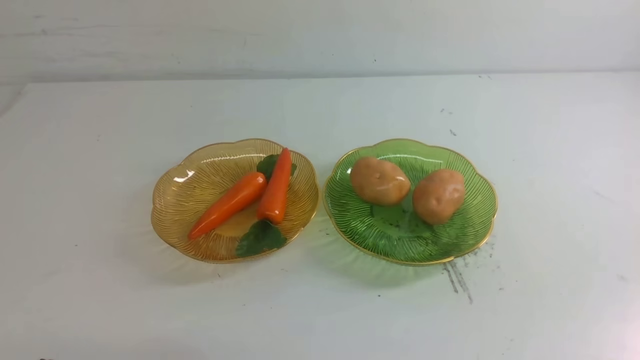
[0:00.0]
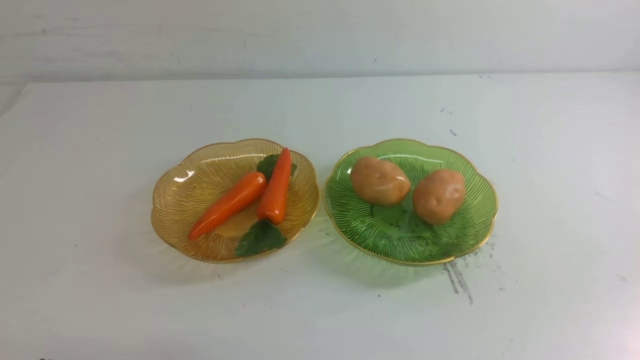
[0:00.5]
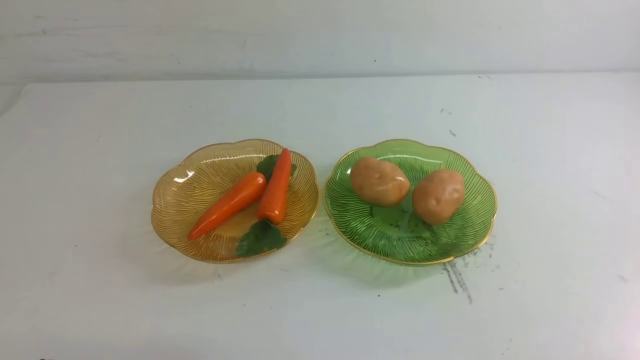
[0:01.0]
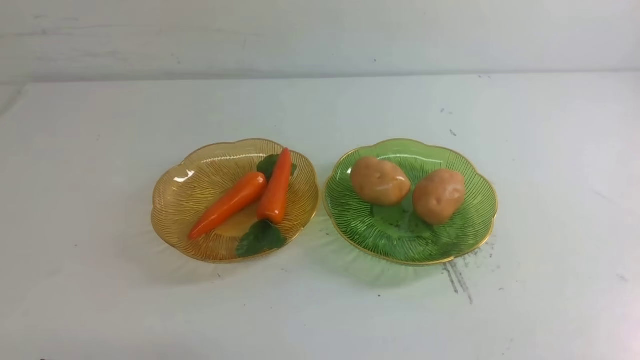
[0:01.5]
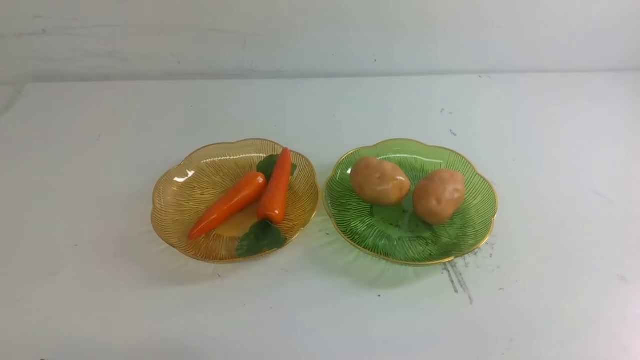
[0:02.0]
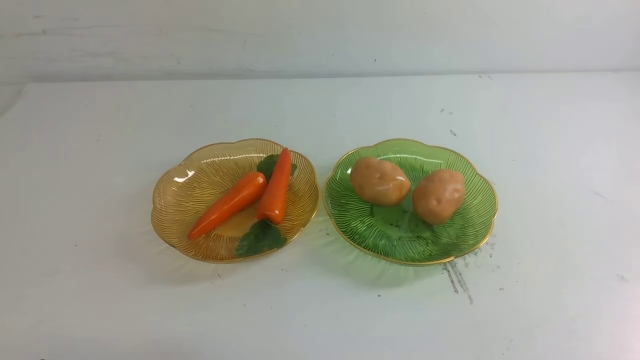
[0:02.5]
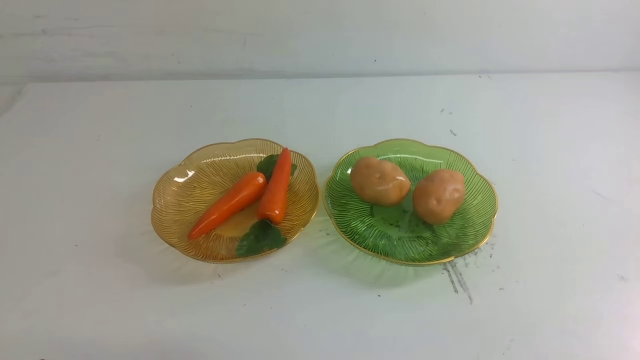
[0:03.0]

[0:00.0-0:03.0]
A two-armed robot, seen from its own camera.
0:01.5 to 0:03.0: Both grippers stay put.

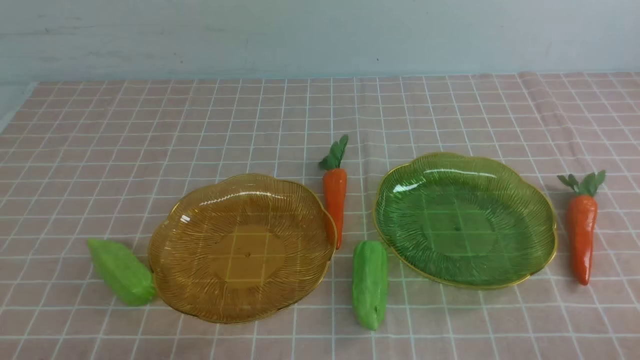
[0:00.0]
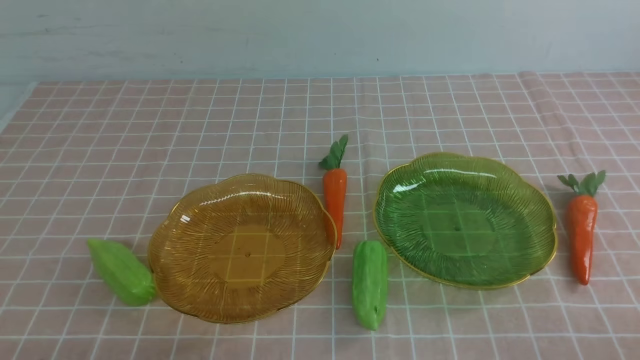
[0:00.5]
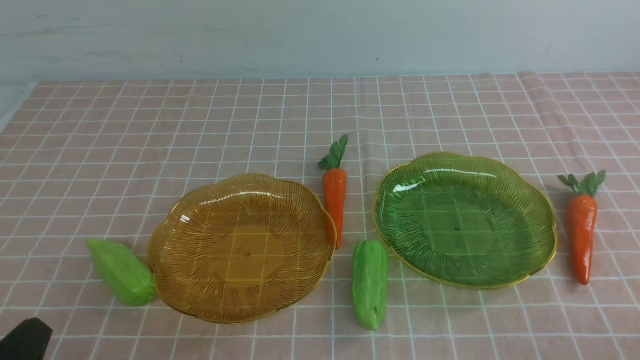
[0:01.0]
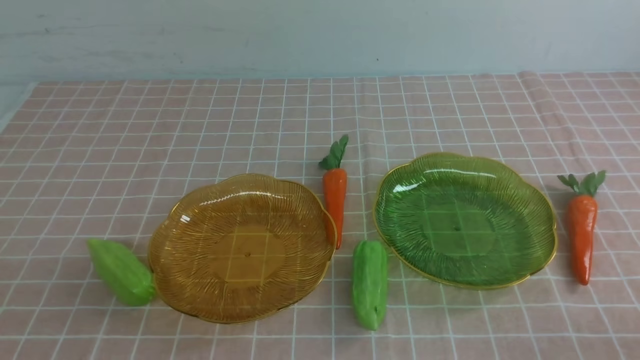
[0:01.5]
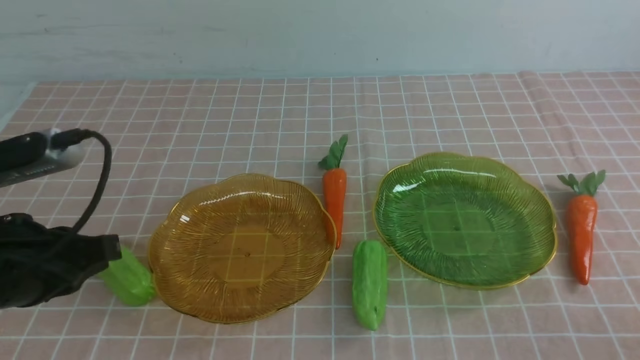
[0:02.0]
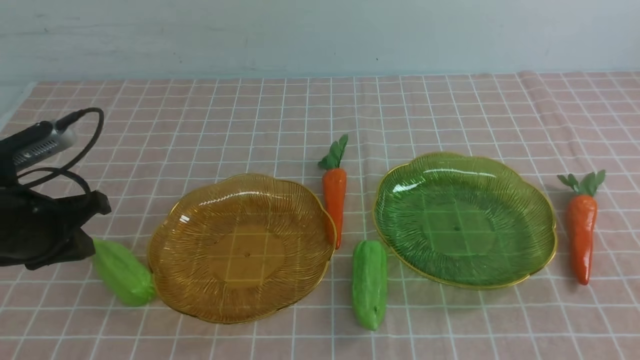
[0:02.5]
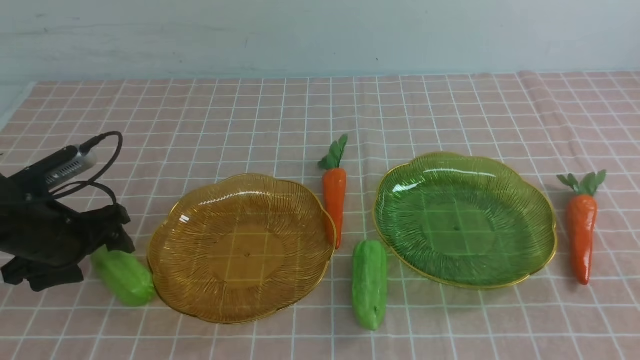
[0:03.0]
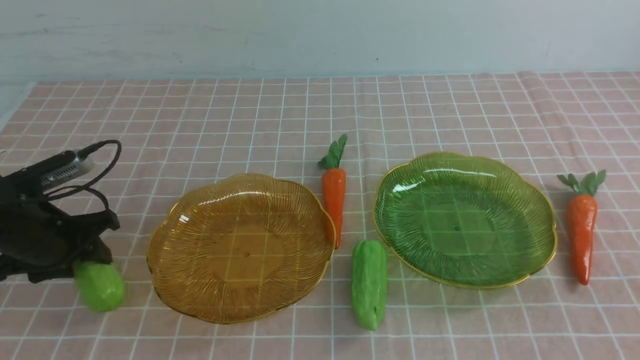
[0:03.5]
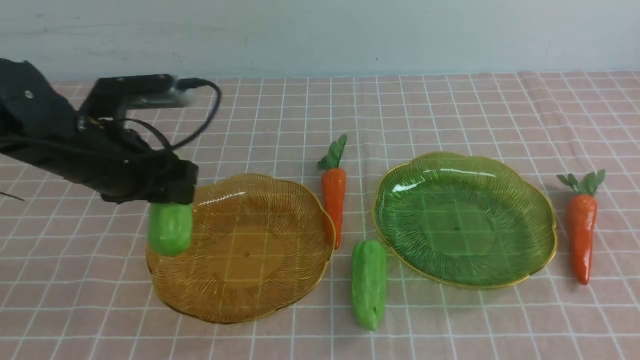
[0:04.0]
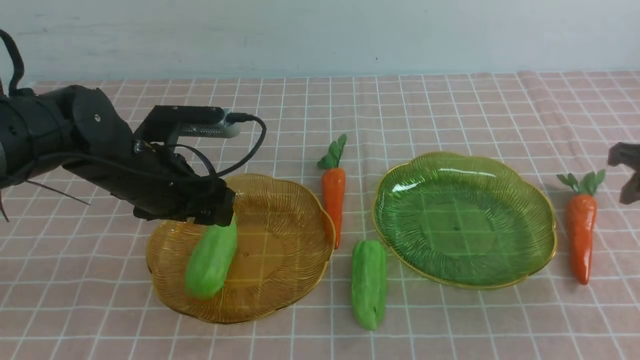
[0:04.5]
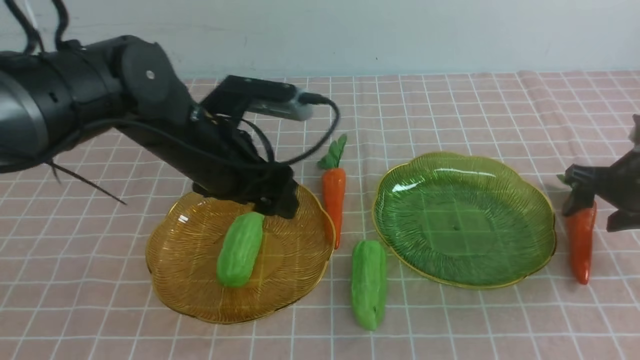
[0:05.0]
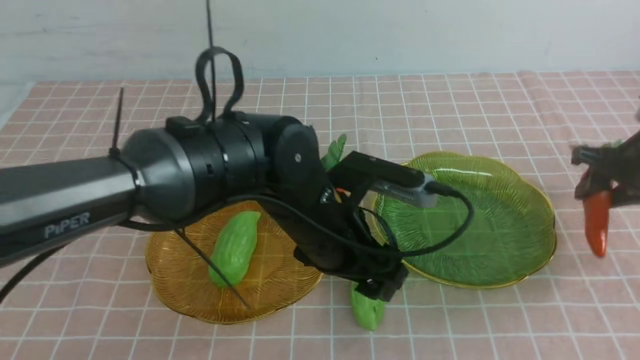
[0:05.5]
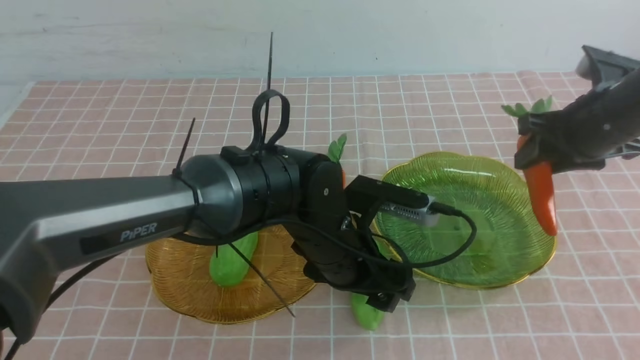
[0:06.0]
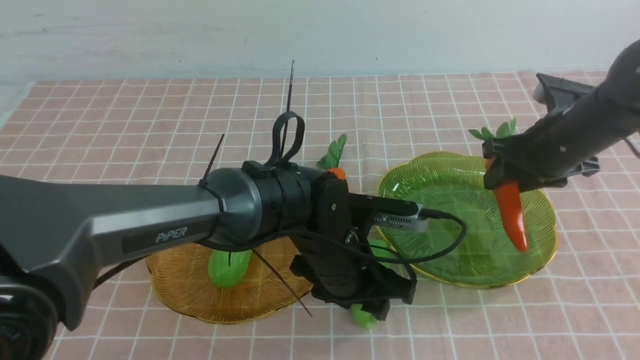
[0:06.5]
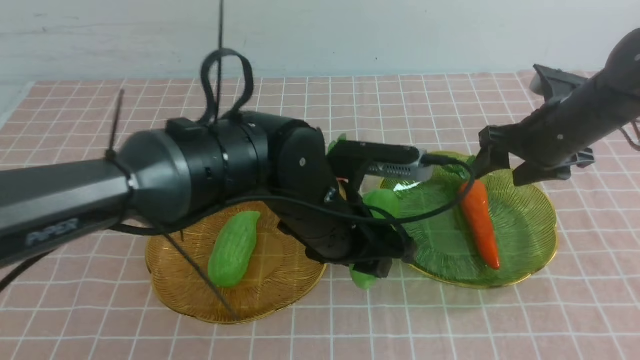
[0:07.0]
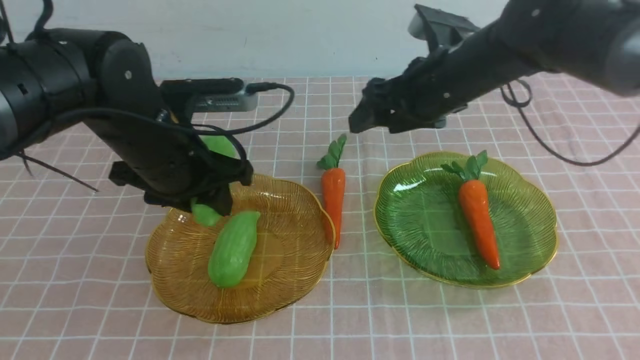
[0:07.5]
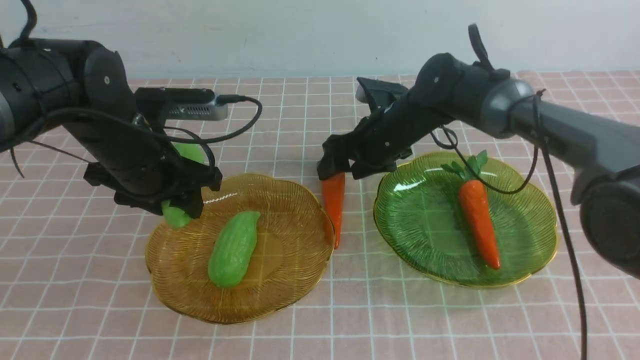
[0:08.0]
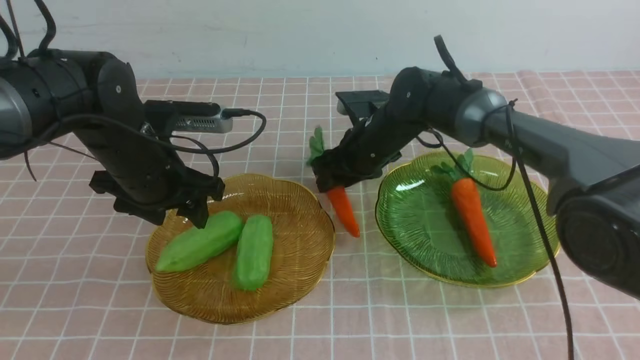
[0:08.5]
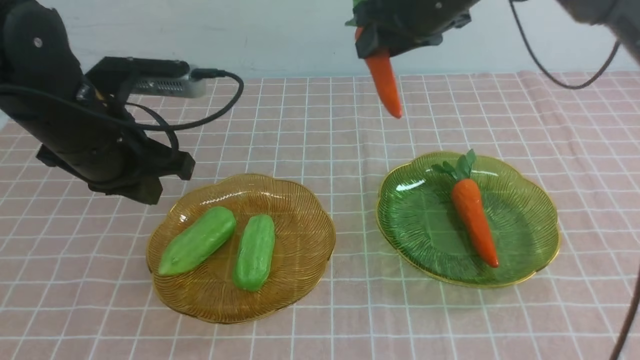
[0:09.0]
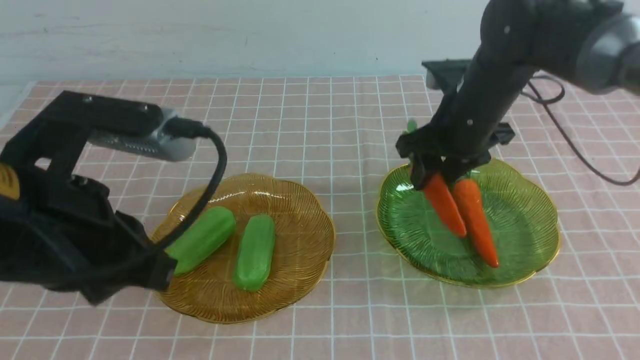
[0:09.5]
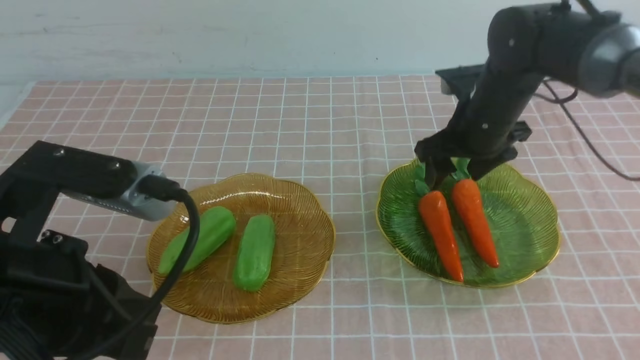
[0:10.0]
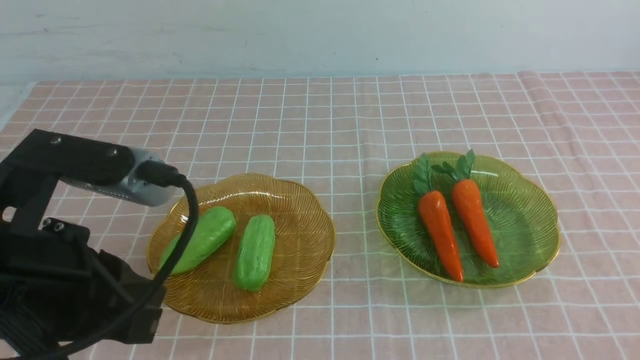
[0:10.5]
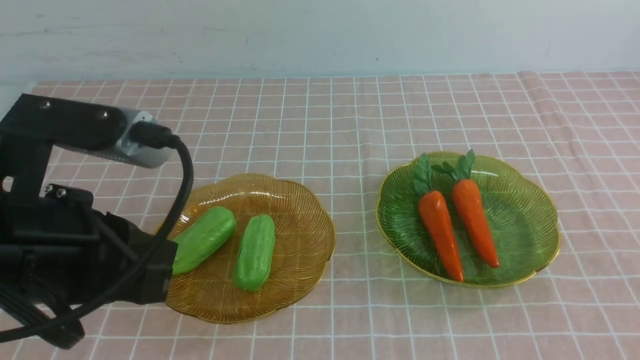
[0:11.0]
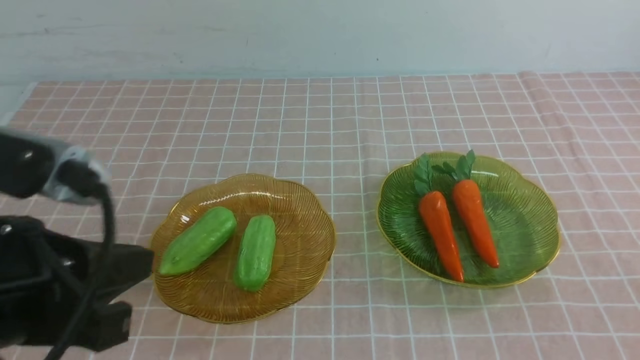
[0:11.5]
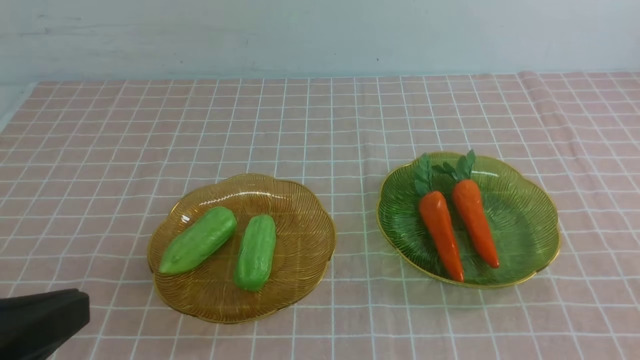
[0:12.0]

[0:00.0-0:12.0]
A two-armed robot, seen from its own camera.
Step, 0:00.0 to 0:04.5: use the left arm to grab a chayote and put it into the left plate.
Step, 0:05.0 to 0:06.5: use the right arm to grab a carrot and put it into the right plate.
Step, 0:07.0 to 0:08.0: use the left arm to grab a chayote and put it into the left plate.
Step, 0:08.5 to 0:09.5: use the right arm to grab a carrot and put it into the right plate.
0:02.0 to 0:04.0: The left gripper shifts roughly 20 cm forward, and opens.
0:04.0 to 0:06.0: The right gripper shifts about 15 cm forward, to the left and downward, and opens, while the left gripper heads to the right, covering approximately 20 cm, and opens its fingers.
0:06.0 to 0:08.0: The right gripper heads to the left and forward, covering about 20 cm, and opens. Meanwhile the left gripper moves to the left and upward, some 20 cm, and closes its fingers.
0:08.0 to 0:10.0: The left gripper shifts some 20 cm backward, and closes; the right gripper moves to the right, about 10 cm, and moves some 10 cm upward and comes back.
0:10.0 to 0:12.0: The right gripper heads backward, covering approximately 40 cm, and closes its fingers. Meanwhile the left gripper shifts some 10 cm backward.

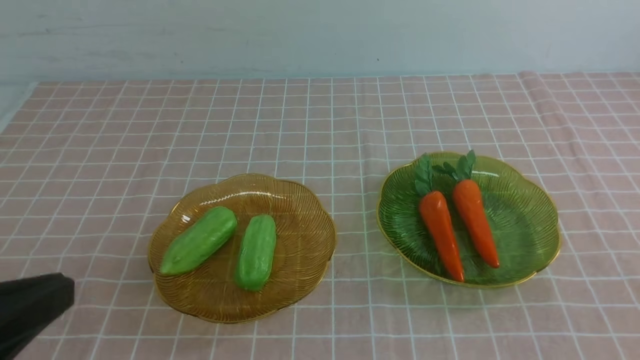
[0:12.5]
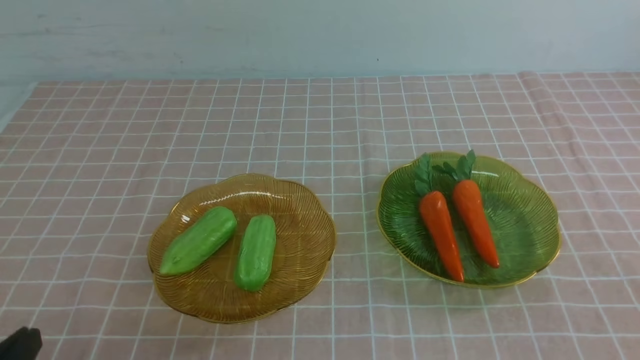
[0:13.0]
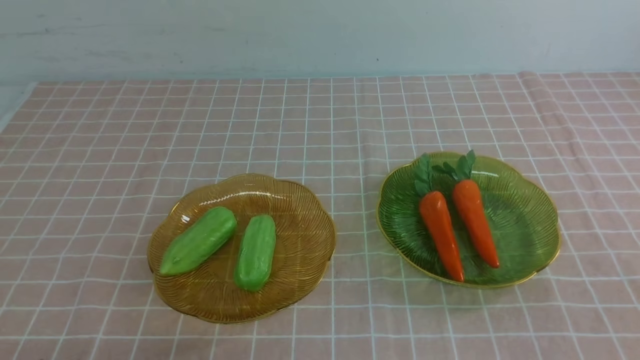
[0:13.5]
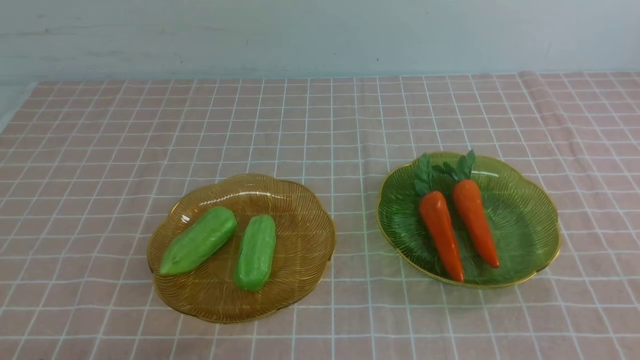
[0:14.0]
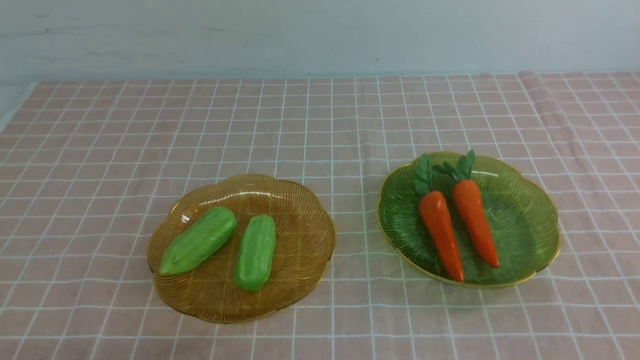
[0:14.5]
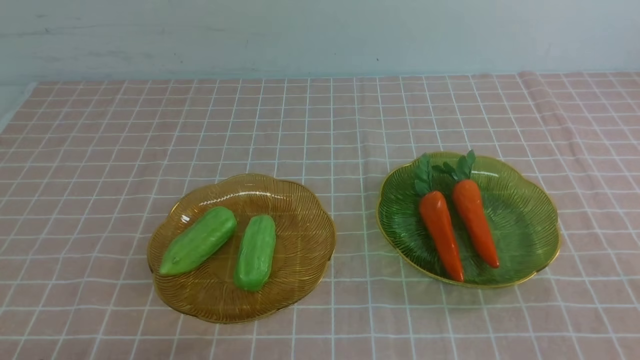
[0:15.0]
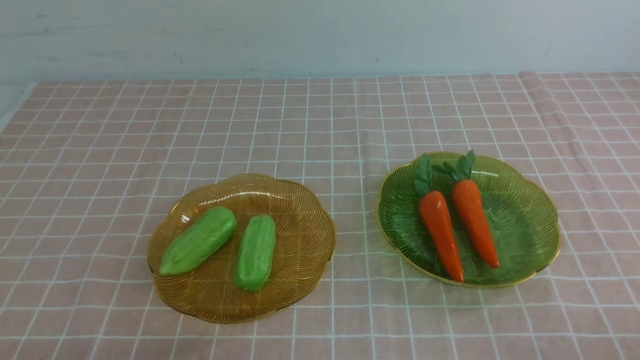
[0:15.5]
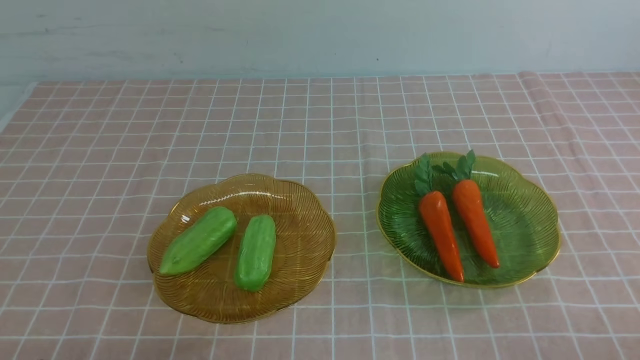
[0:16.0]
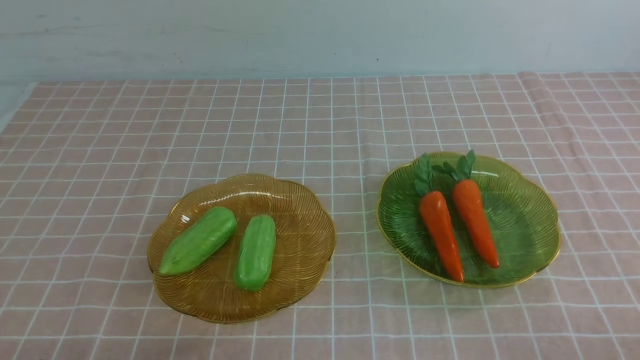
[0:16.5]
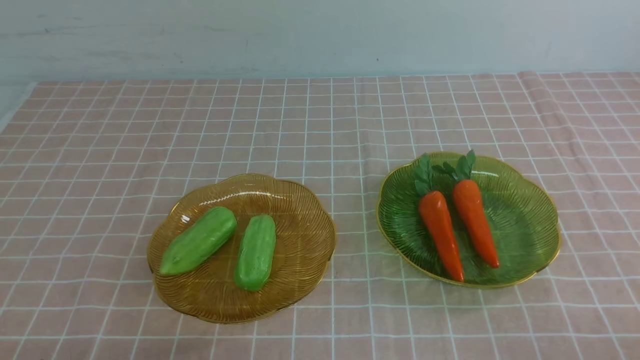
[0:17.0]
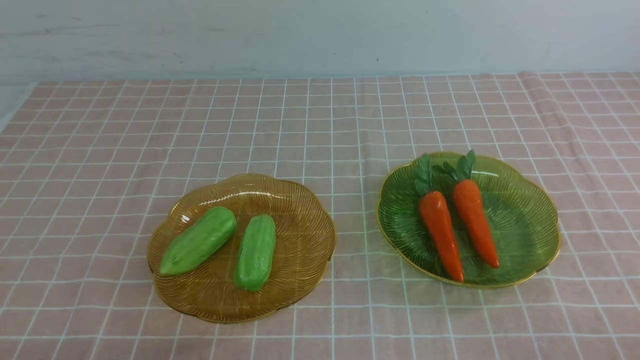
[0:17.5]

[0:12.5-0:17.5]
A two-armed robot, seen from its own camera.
0:12.5 to 0:15.0: The left gripper goes roughly 15 cm downward.
